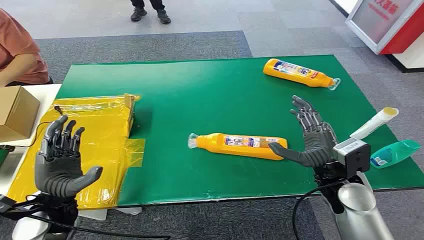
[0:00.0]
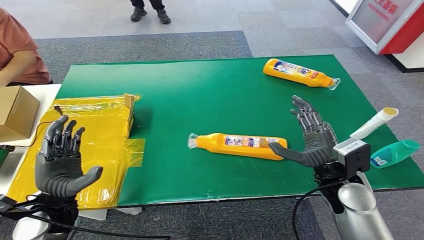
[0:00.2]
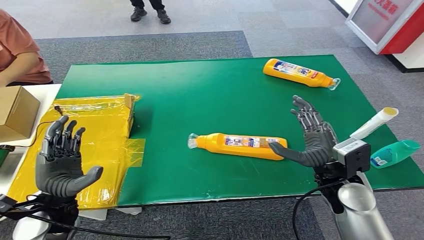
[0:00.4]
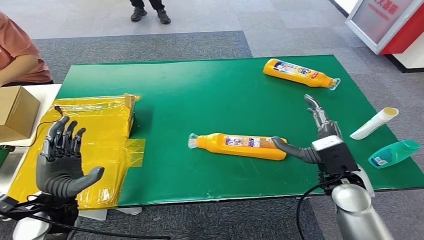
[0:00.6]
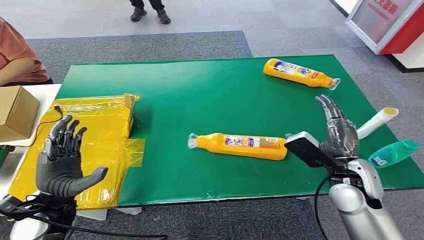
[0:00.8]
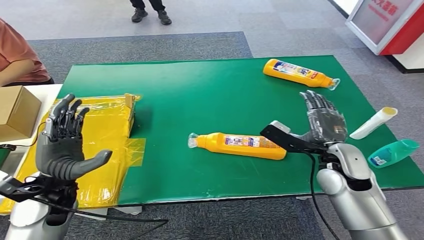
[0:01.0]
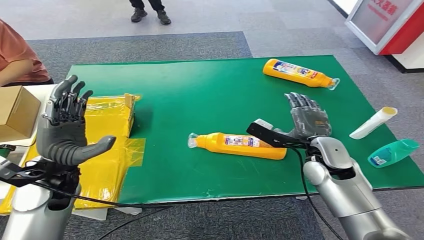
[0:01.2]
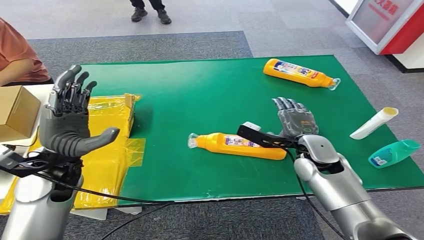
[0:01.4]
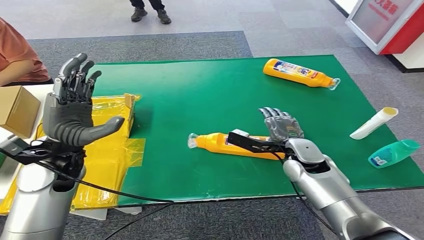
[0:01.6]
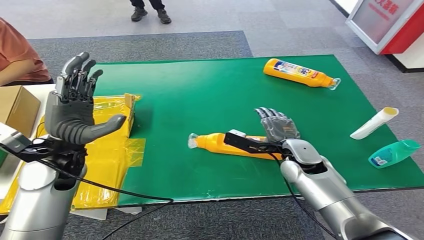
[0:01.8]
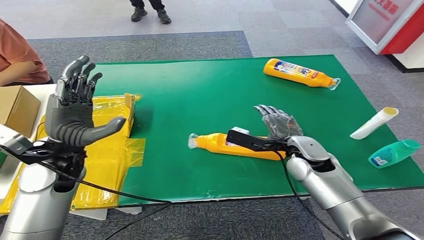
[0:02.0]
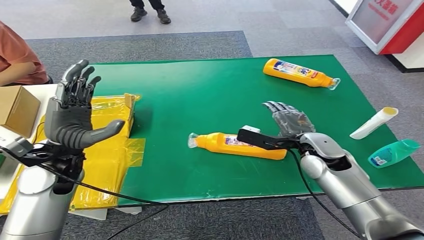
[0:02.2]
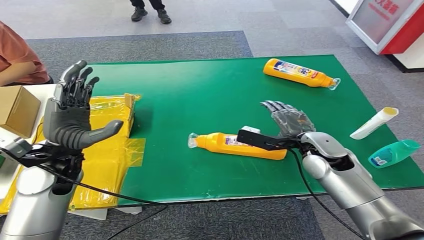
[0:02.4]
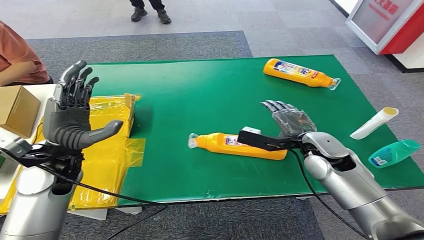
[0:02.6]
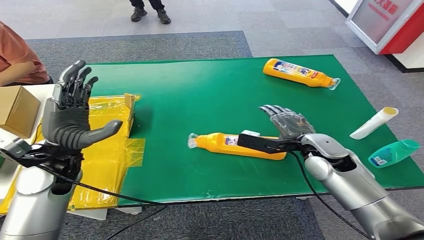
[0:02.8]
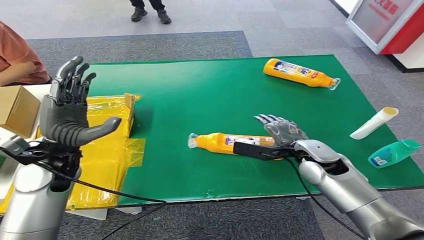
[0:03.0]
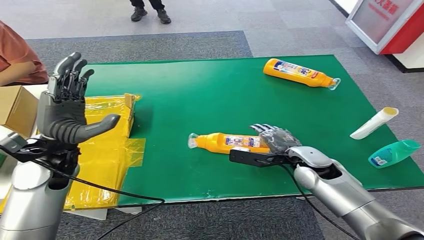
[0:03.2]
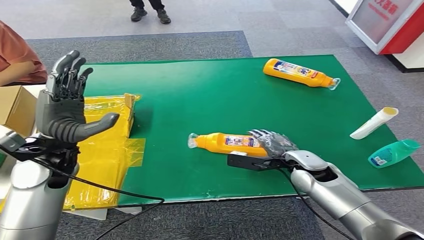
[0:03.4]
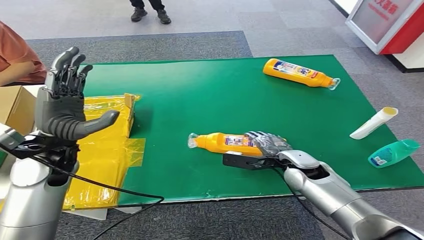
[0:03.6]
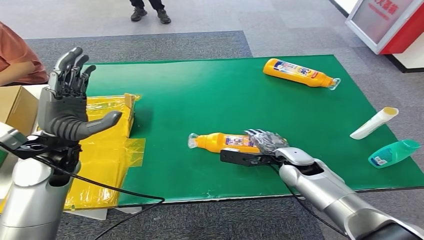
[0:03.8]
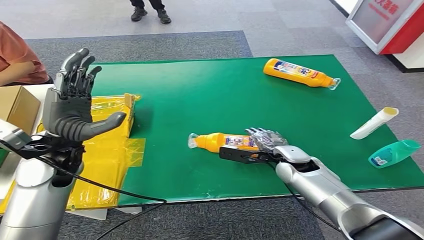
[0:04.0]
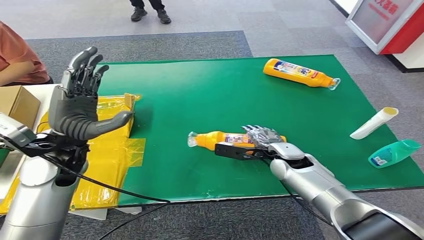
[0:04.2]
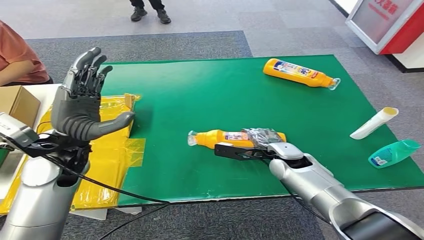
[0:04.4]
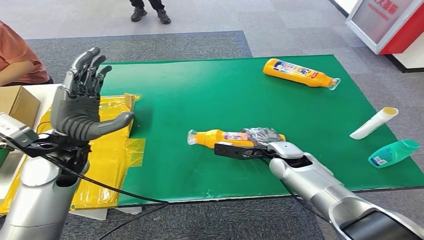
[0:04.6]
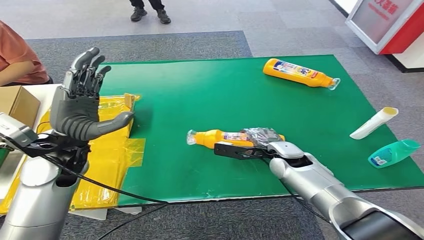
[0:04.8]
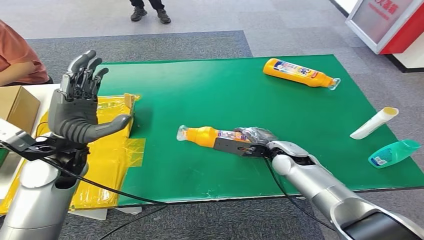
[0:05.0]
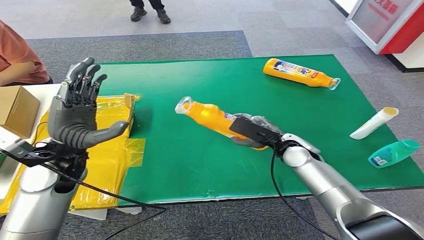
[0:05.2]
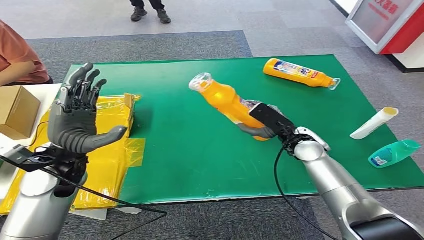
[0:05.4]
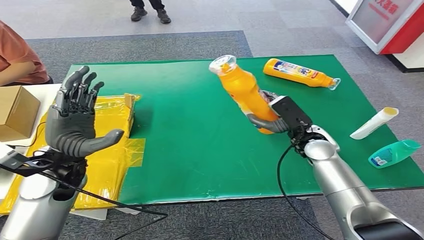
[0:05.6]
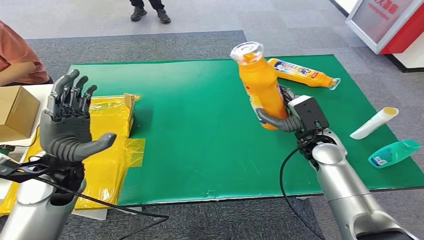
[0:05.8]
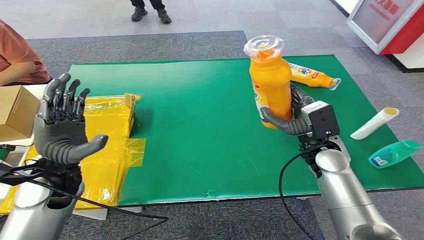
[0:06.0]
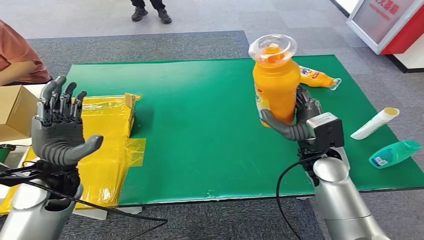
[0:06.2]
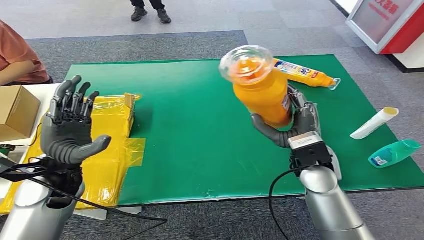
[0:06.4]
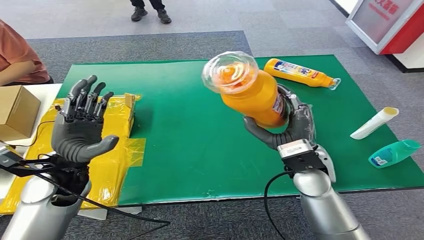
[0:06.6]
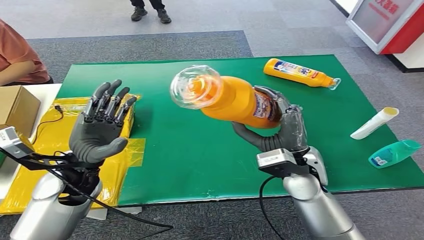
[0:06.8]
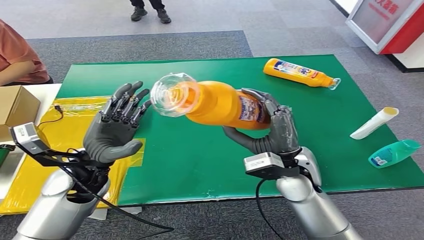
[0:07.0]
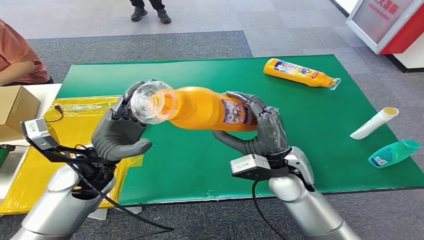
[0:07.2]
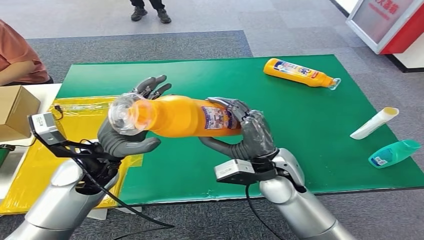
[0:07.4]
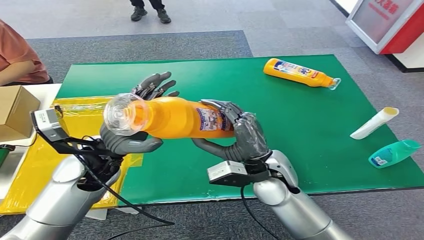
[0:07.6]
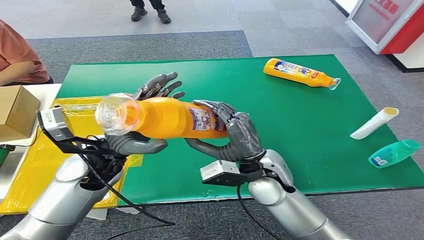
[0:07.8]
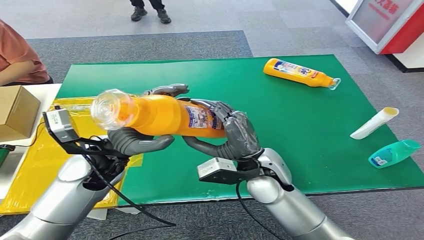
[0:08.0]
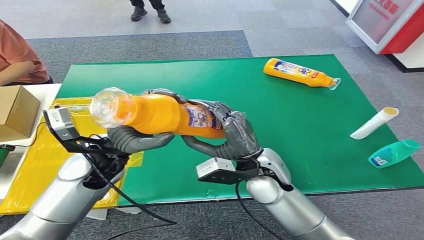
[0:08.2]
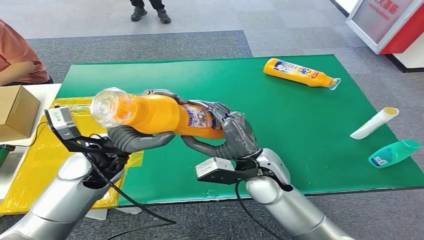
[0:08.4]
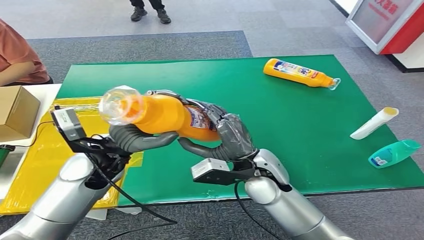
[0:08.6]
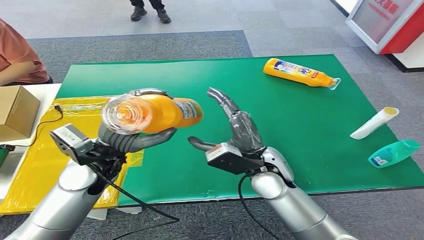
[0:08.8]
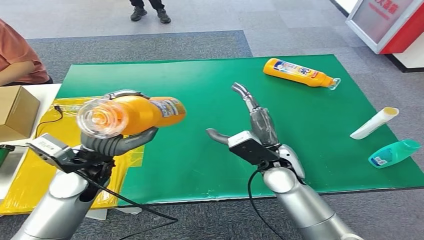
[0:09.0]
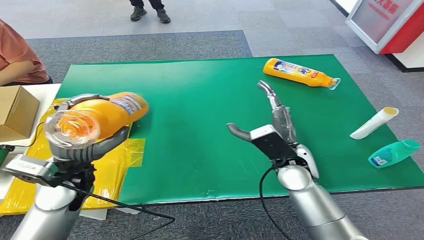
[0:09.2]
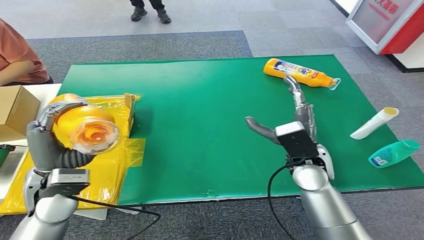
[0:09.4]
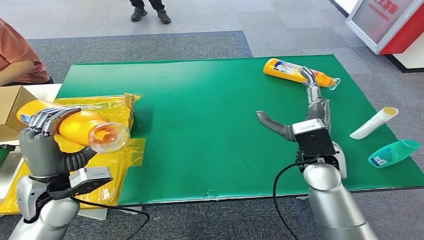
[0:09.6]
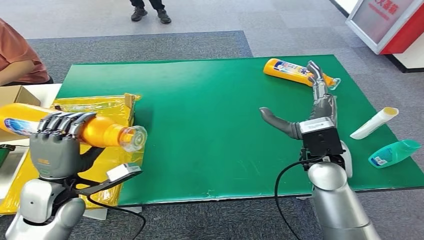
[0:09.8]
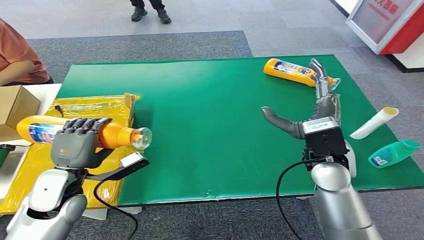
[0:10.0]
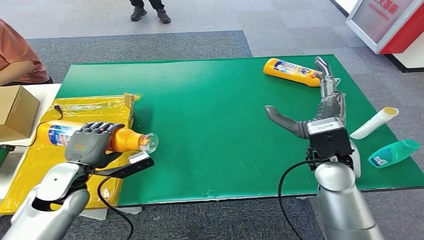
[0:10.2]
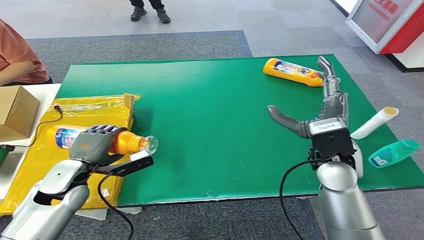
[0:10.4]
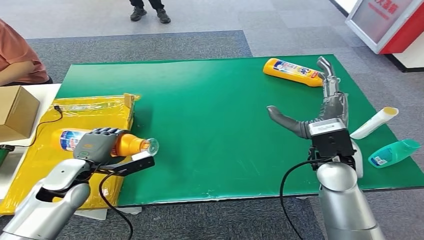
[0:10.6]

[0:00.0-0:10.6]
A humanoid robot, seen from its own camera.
Step, 0.0 to 6.0 s: Pick up the bottle from the table.
1.6 to 3.0 s: The hands move only a little.
3.0 to 4.6 s: The right hand is displaced to the left by some 5 cm.

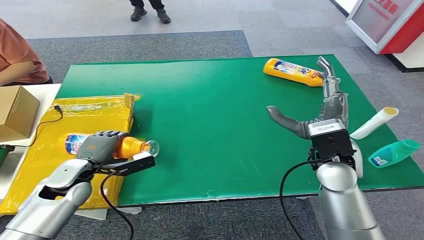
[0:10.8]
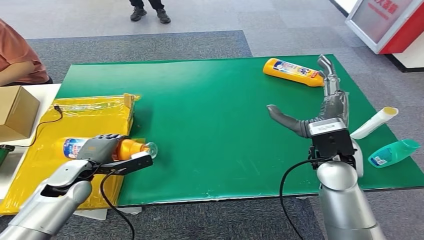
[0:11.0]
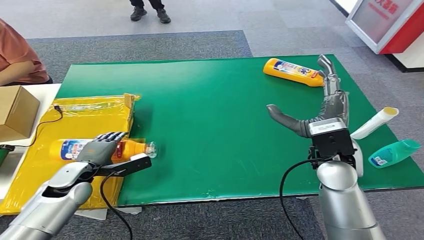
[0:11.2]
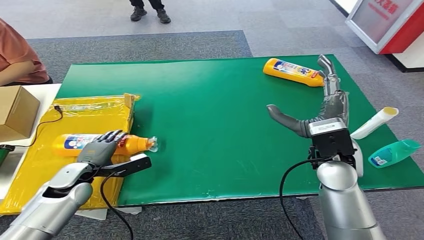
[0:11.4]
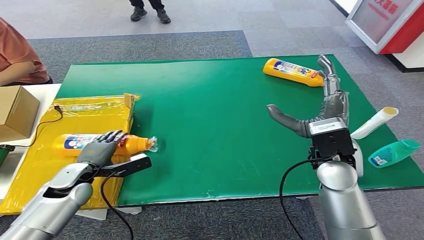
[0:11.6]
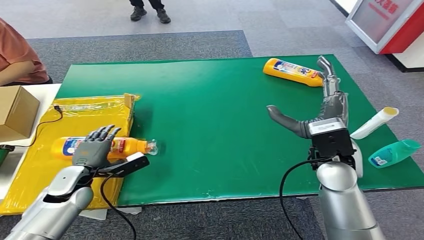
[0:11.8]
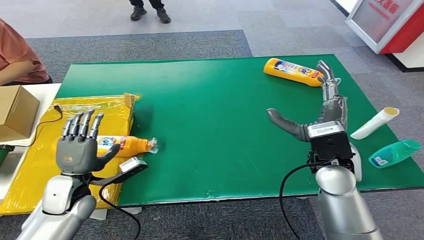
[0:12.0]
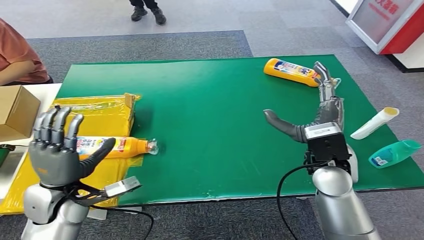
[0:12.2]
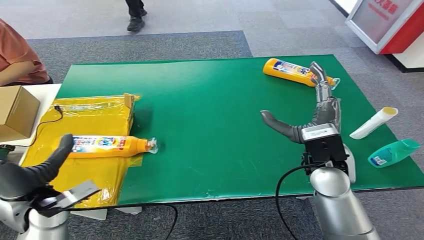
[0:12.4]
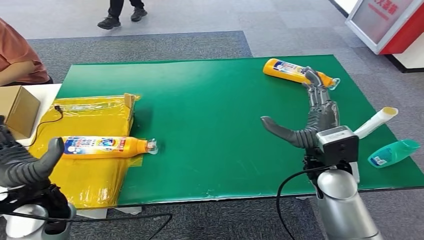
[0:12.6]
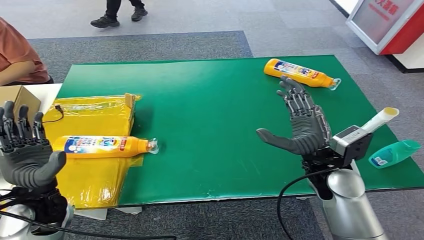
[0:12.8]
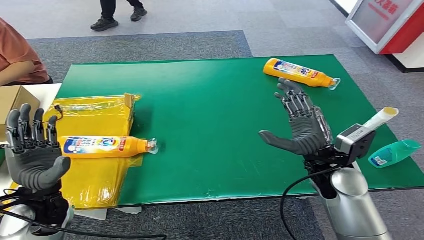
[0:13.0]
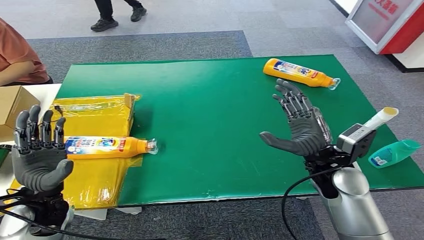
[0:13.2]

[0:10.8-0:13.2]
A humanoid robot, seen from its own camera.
Step, 10.8 to 13.2 s: Turn the bottle to the front side.

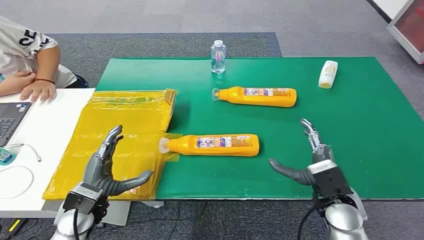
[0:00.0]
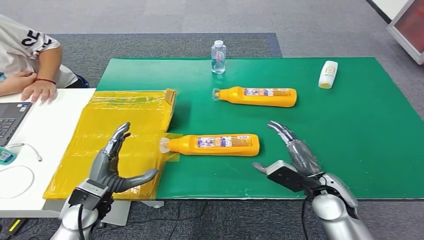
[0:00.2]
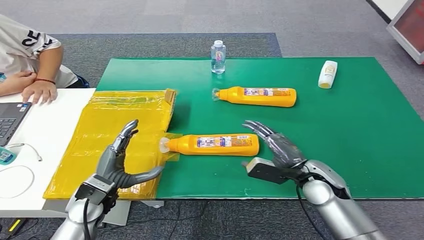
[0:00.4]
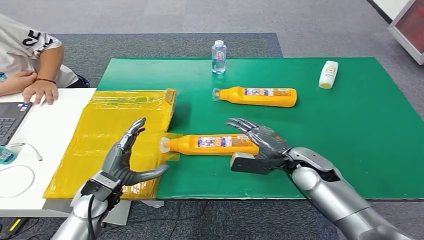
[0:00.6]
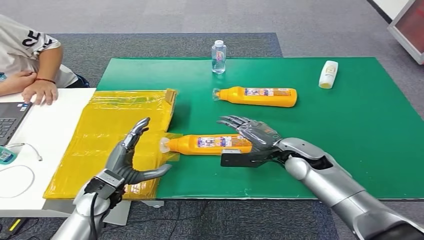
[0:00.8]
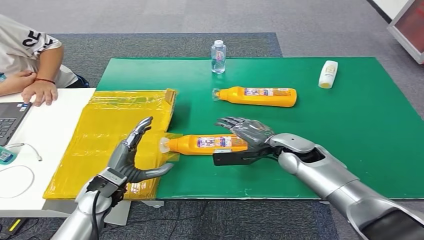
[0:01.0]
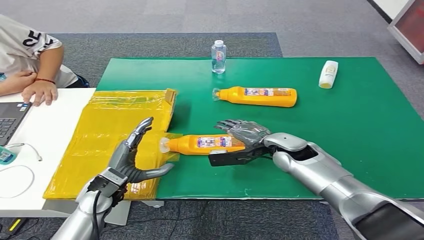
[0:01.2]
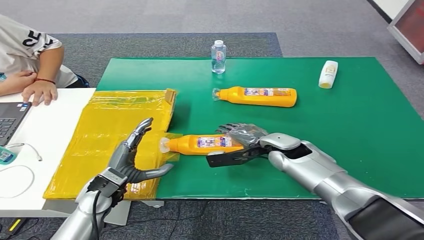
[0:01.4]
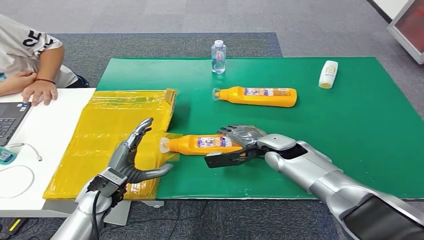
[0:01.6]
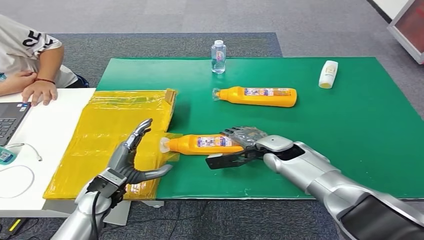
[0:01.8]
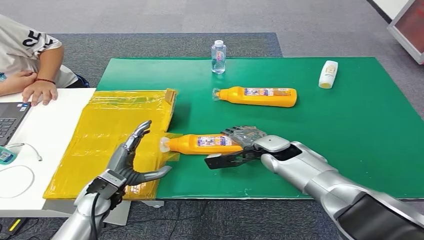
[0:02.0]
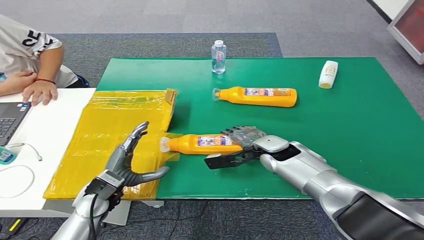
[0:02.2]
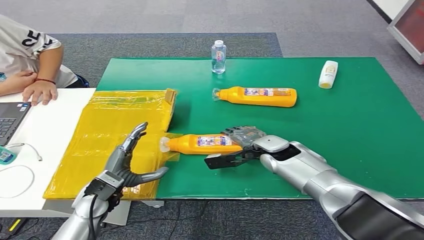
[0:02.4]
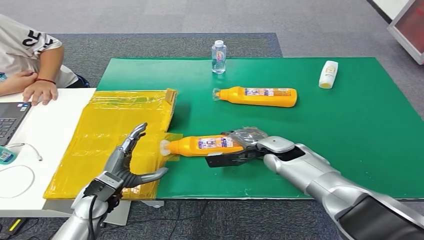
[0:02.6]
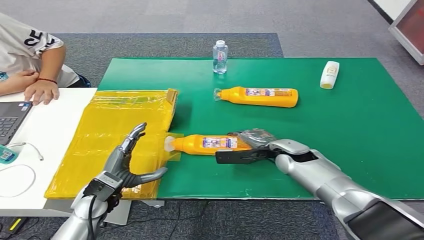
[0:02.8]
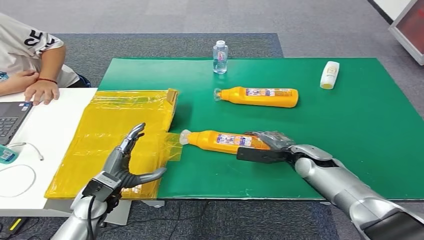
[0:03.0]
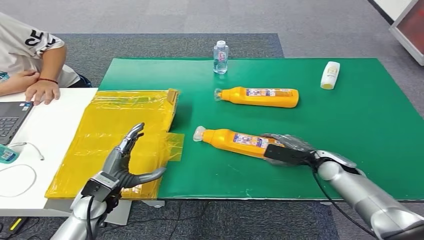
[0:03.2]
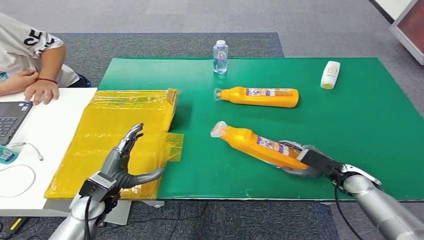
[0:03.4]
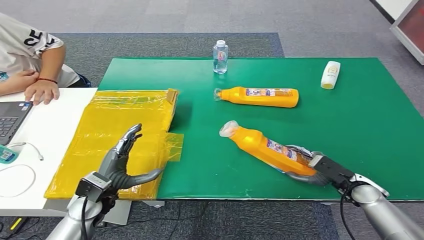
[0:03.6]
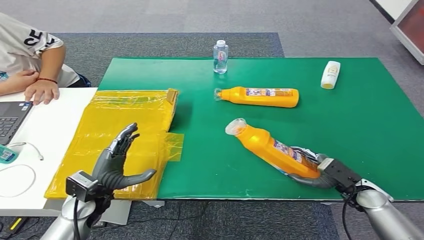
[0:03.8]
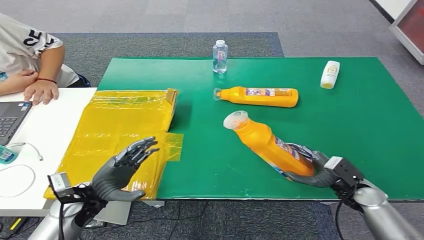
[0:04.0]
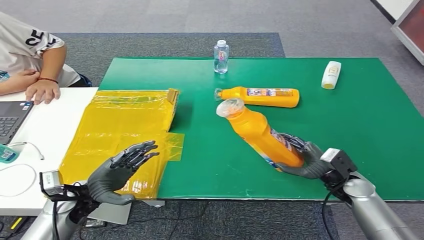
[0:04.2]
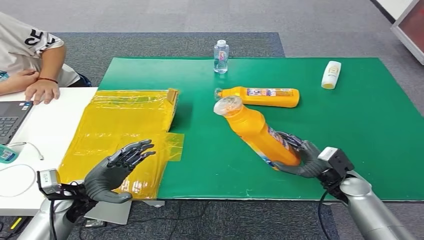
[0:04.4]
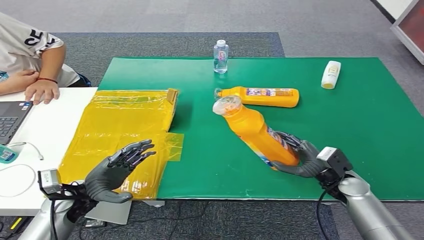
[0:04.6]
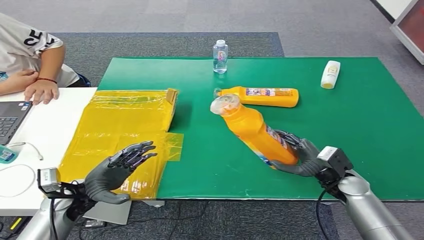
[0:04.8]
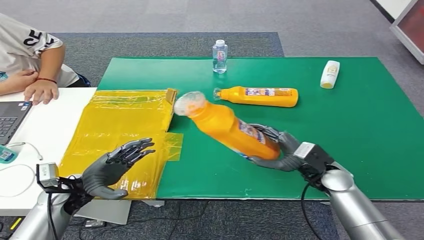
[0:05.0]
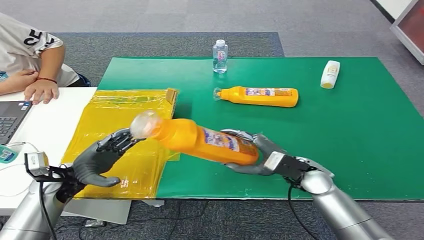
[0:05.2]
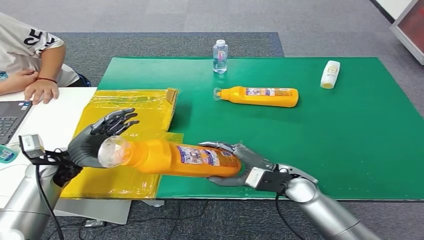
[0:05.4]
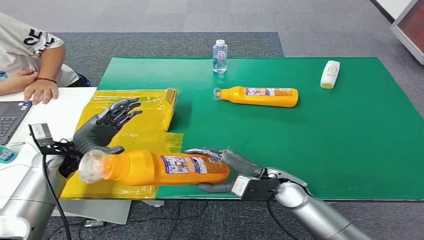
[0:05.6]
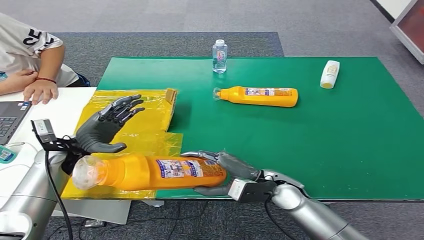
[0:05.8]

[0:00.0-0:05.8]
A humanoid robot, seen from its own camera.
Step, 0.0 to 5.4 s: Pick up the bottle from the table.
1.4 to 2.8 s: The hands stay close to where they were, moving slightly.
2.8 to 4.4 s: The left hand moves to the left, roughly 5 cm, while the right hand is displaced to the right and backward by about 15 cm.
